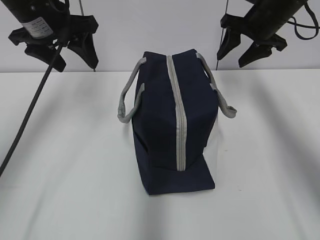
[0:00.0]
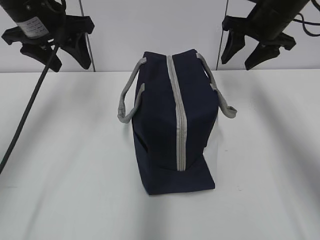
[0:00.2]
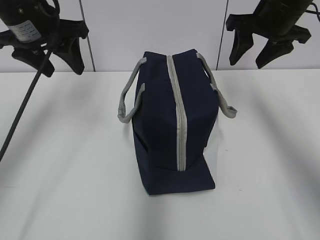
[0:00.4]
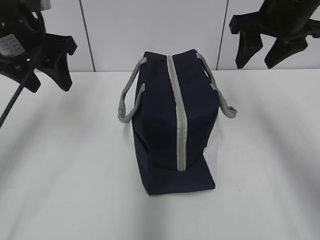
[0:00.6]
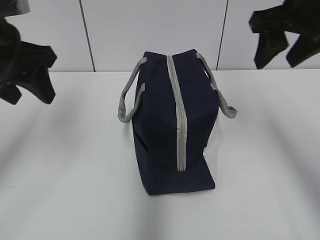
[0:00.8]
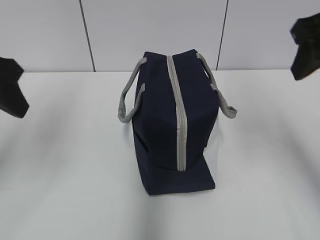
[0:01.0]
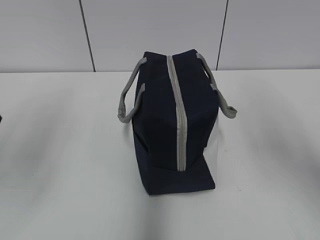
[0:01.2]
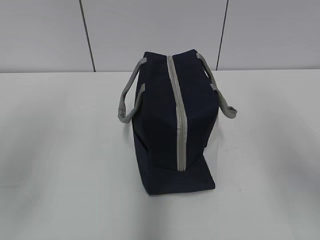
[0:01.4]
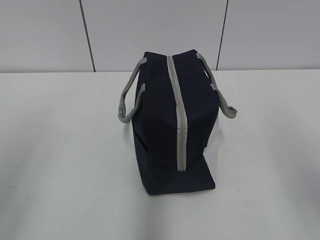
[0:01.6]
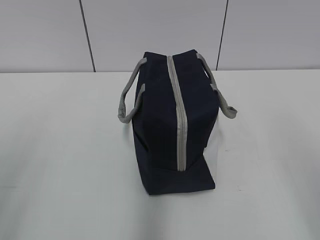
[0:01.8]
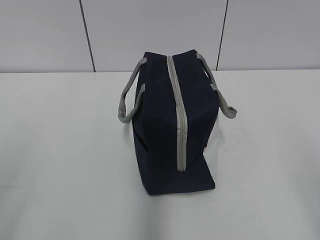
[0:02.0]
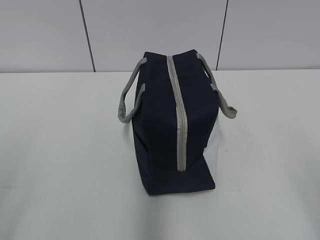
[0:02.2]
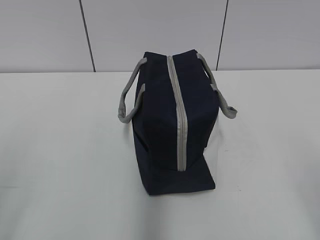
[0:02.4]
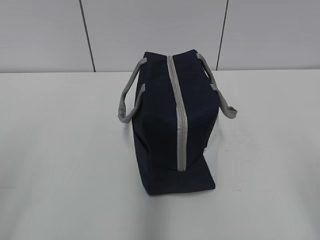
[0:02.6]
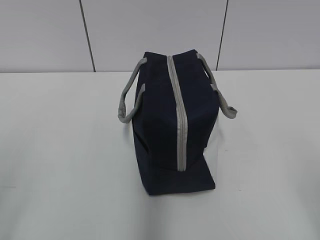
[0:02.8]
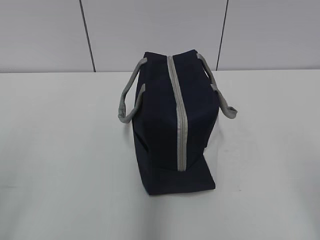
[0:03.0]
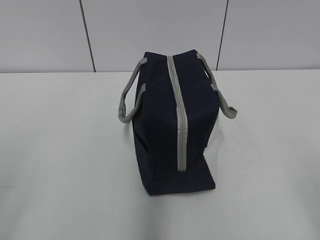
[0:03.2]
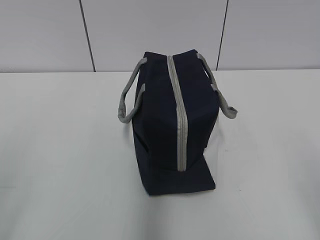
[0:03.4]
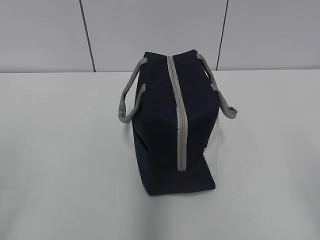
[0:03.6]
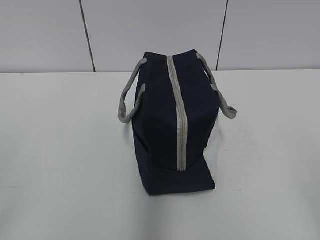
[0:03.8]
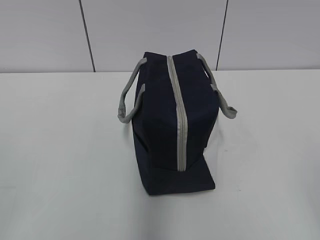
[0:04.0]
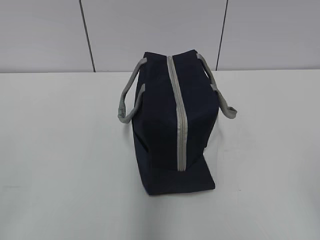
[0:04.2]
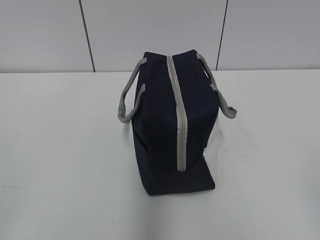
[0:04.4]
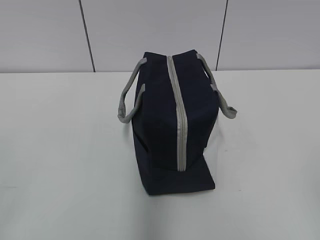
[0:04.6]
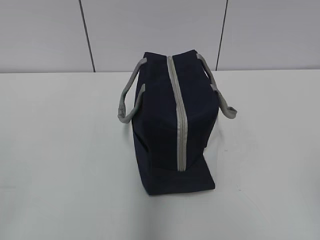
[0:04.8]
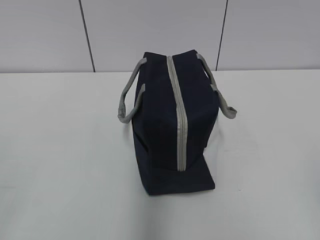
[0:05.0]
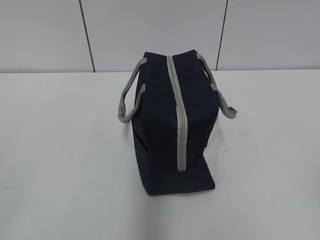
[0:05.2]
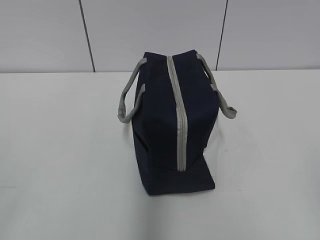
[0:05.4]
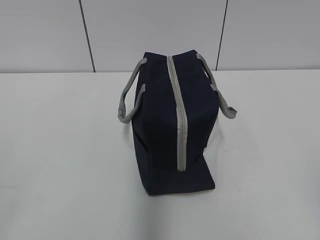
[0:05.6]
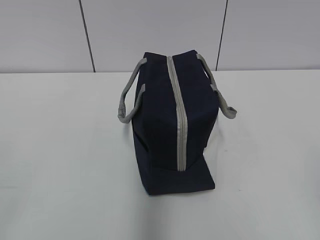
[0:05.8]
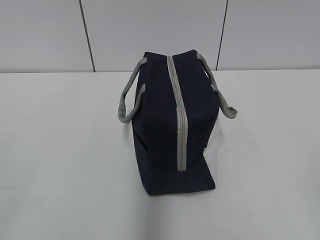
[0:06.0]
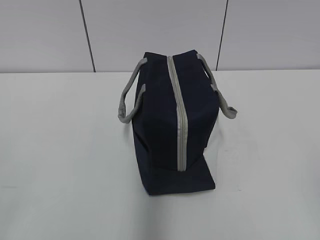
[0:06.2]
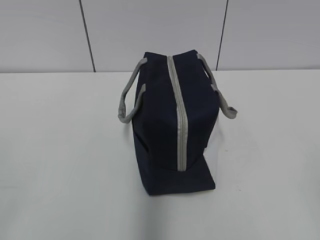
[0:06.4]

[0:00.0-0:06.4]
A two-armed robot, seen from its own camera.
0:00.0 to 0:01.6: The two grippers go some 30 cm backward.
0:04.8 to 0:06.4: Both grippers stay put.
